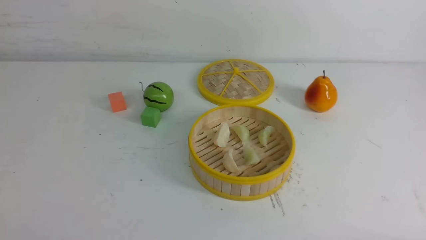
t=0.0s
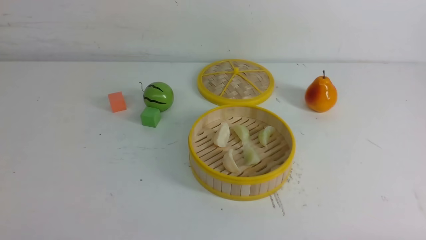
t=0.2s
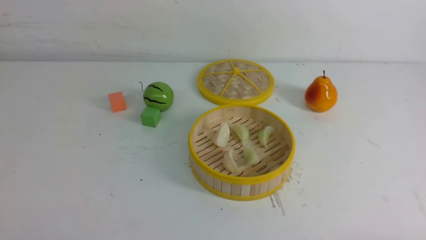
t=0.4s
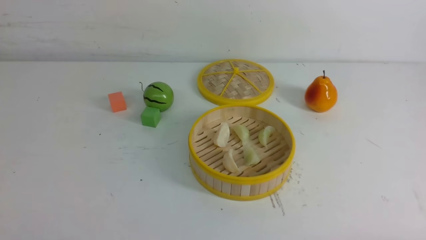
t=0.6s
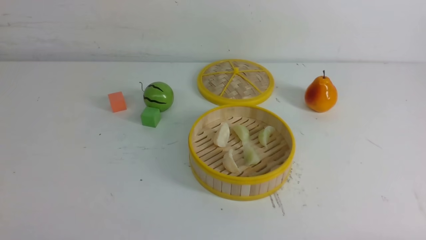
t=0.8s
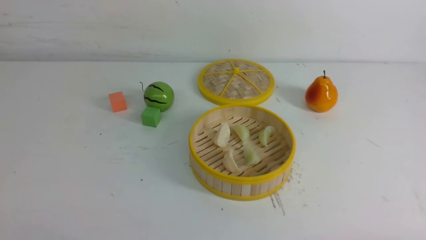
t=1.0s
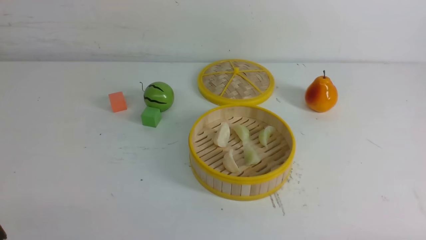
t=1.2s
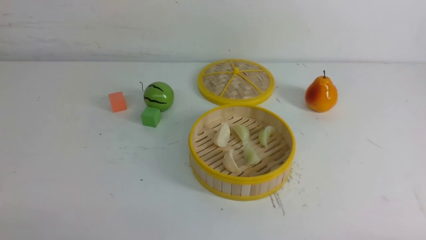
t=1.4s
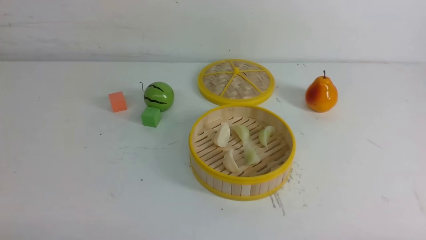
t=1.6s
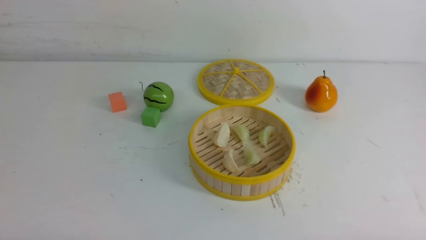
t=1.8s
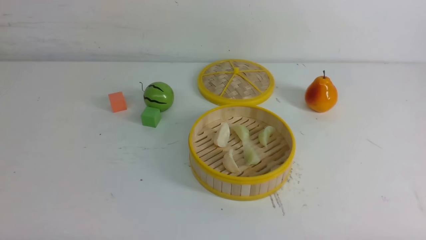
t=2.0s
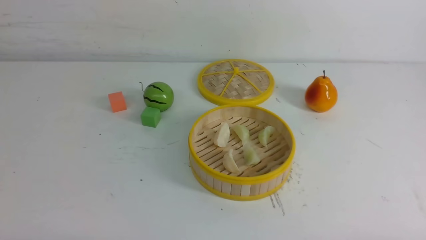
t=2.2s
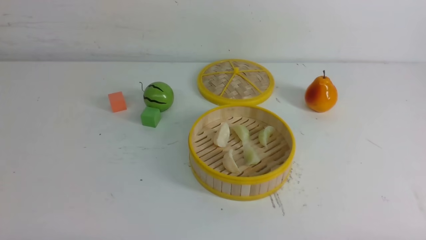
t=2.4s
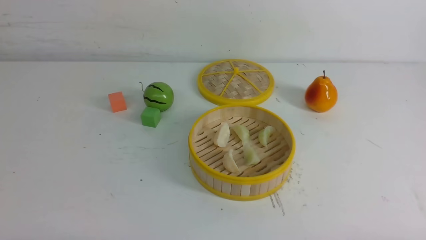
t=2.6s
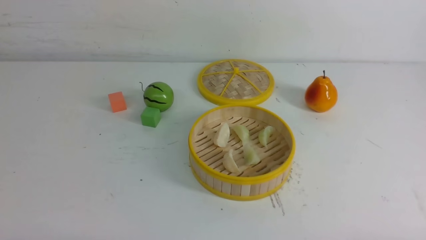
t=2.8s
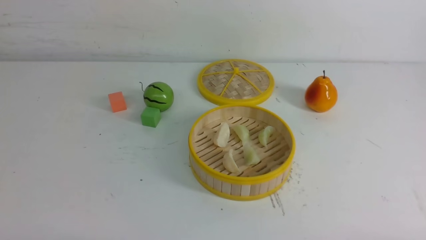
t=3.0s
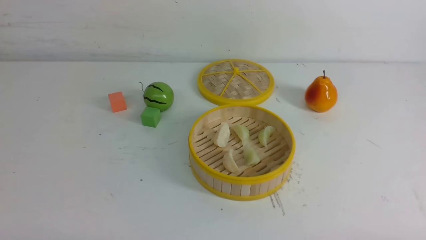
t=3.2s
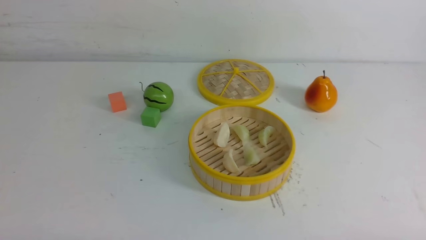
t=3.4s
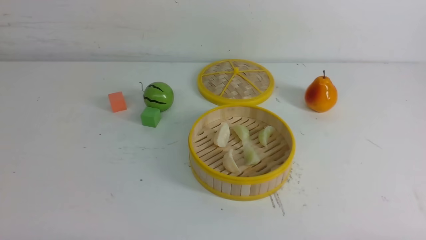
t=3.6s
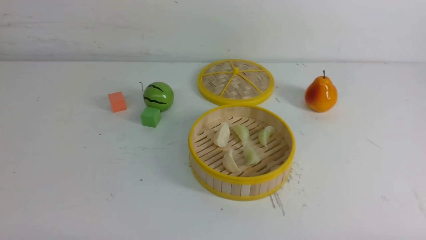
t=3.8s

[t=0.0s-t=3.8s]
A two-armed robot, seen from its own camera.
Task of the whole recording: put the dumplings into the steamer on the white table.
t=2.6s to t=3.8s: Neither gripper changes place.
